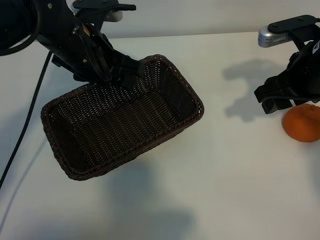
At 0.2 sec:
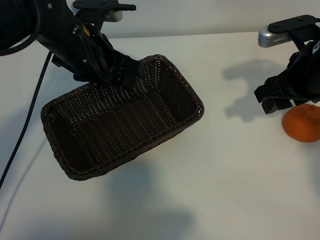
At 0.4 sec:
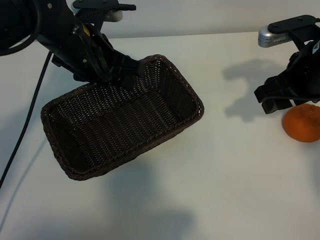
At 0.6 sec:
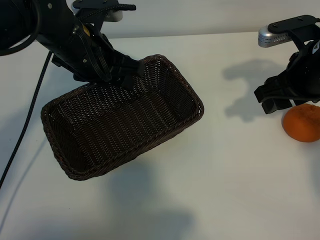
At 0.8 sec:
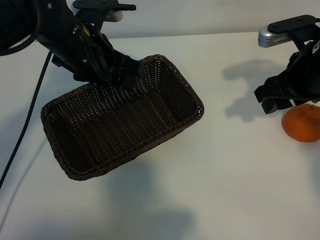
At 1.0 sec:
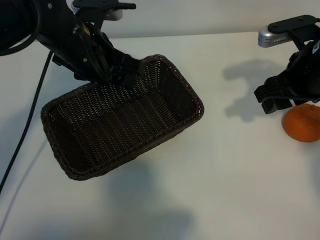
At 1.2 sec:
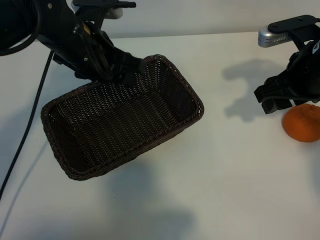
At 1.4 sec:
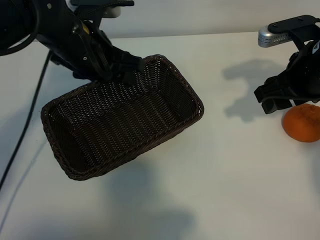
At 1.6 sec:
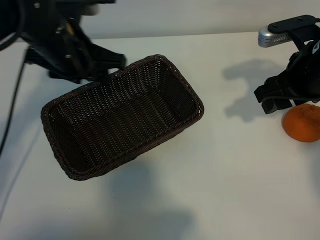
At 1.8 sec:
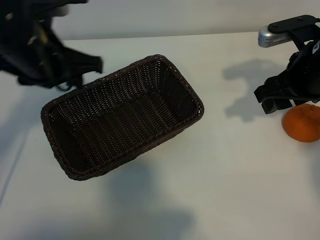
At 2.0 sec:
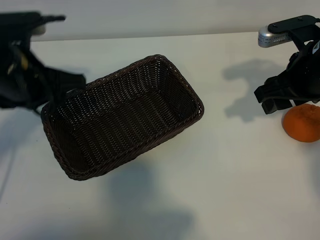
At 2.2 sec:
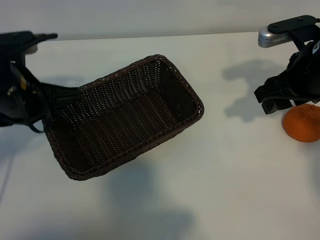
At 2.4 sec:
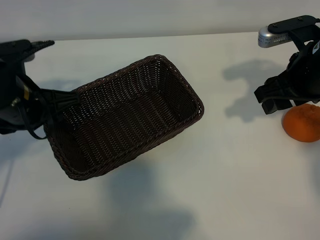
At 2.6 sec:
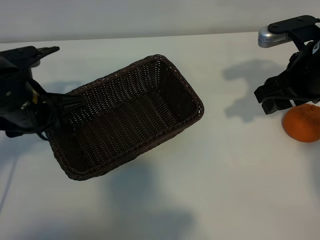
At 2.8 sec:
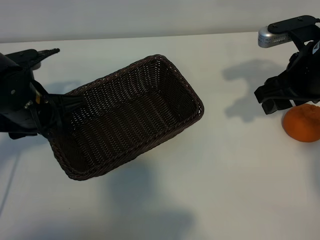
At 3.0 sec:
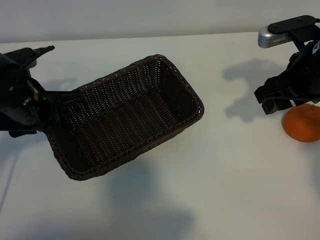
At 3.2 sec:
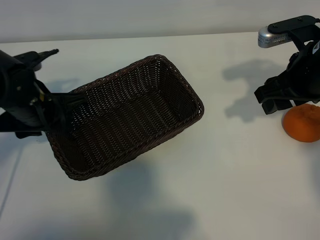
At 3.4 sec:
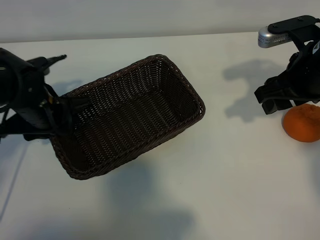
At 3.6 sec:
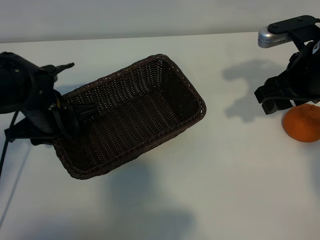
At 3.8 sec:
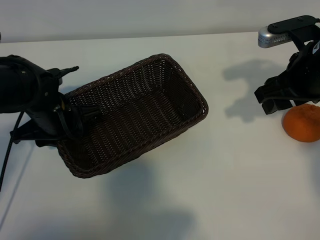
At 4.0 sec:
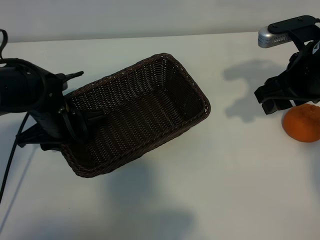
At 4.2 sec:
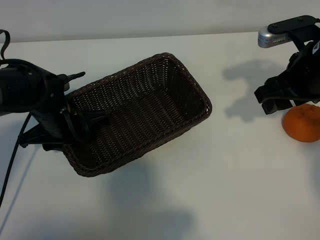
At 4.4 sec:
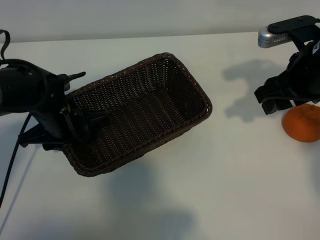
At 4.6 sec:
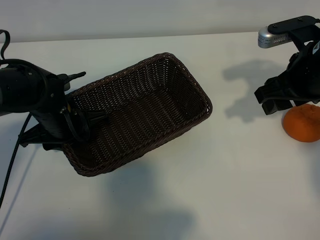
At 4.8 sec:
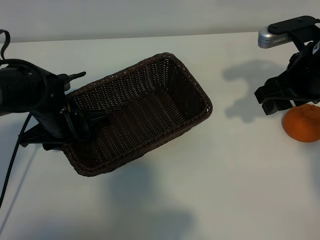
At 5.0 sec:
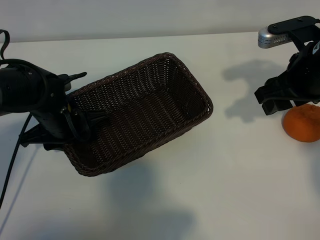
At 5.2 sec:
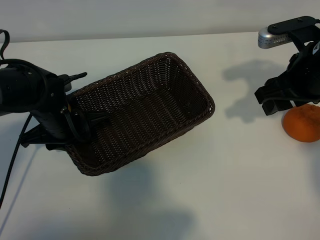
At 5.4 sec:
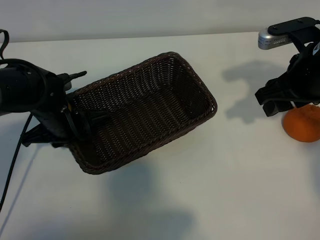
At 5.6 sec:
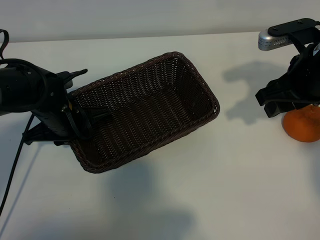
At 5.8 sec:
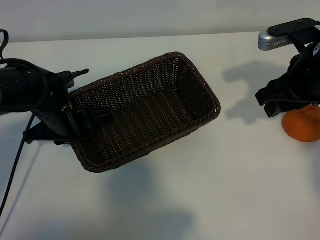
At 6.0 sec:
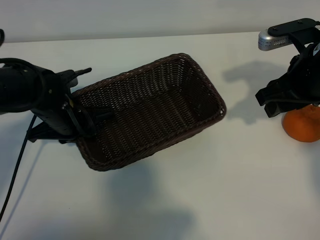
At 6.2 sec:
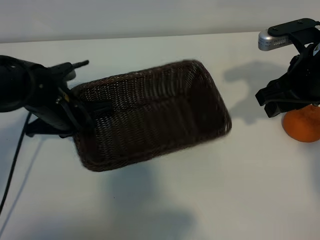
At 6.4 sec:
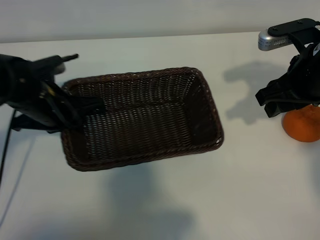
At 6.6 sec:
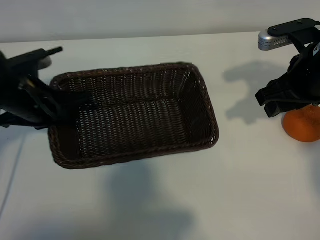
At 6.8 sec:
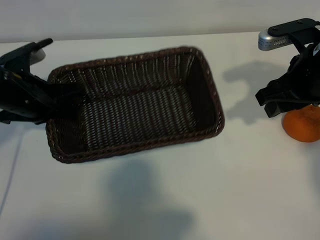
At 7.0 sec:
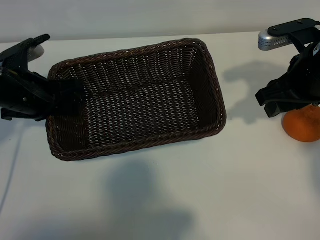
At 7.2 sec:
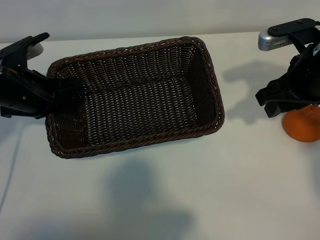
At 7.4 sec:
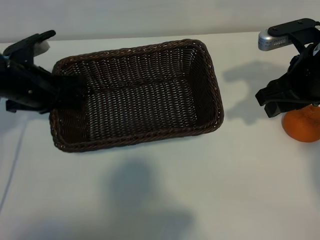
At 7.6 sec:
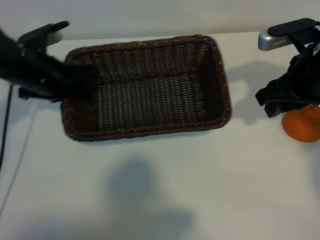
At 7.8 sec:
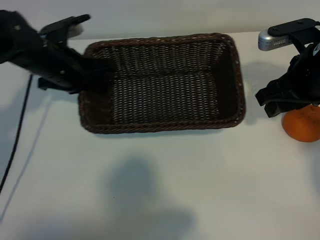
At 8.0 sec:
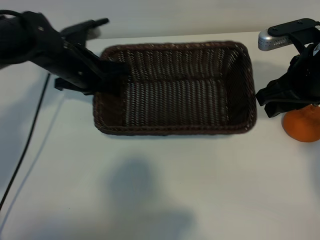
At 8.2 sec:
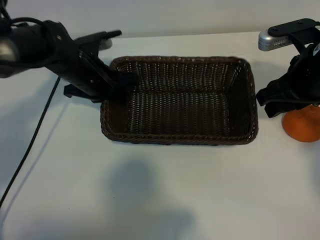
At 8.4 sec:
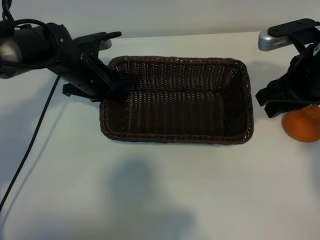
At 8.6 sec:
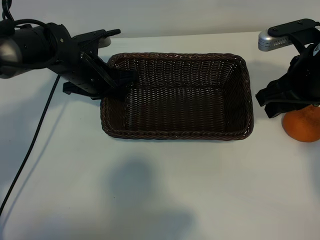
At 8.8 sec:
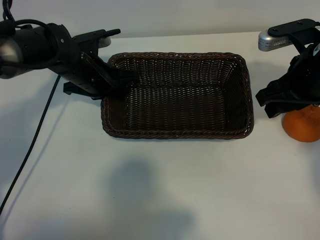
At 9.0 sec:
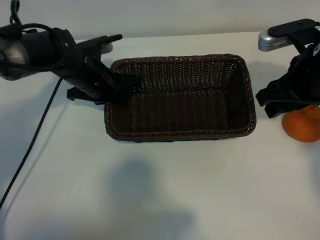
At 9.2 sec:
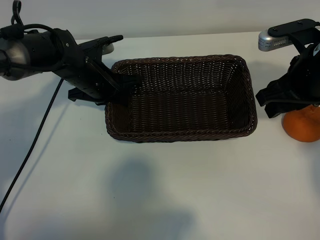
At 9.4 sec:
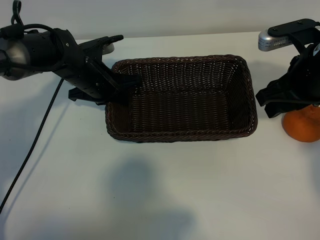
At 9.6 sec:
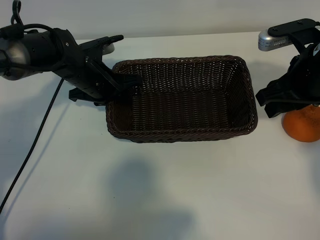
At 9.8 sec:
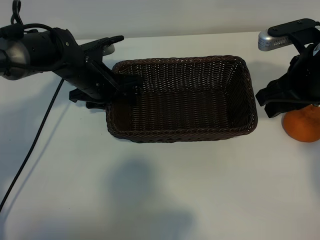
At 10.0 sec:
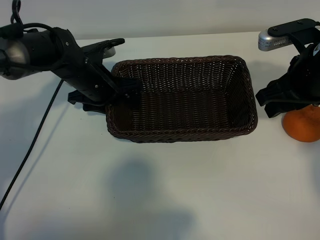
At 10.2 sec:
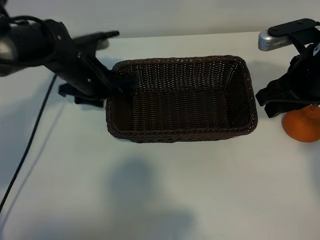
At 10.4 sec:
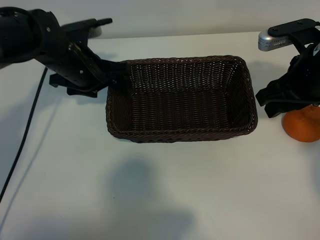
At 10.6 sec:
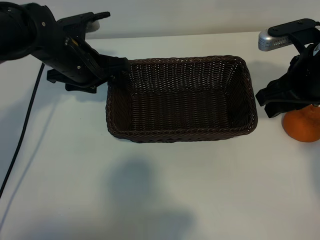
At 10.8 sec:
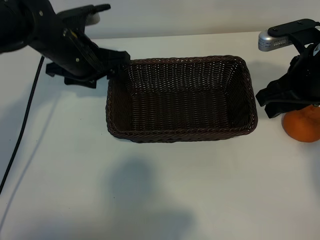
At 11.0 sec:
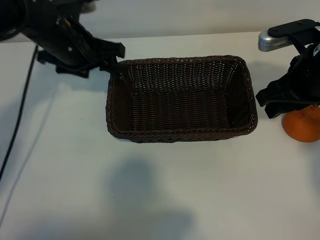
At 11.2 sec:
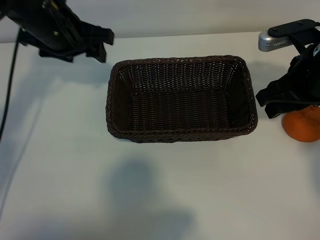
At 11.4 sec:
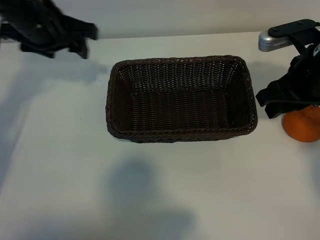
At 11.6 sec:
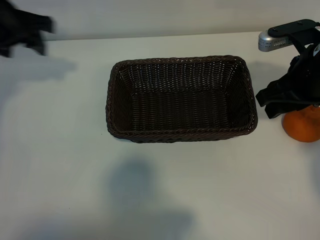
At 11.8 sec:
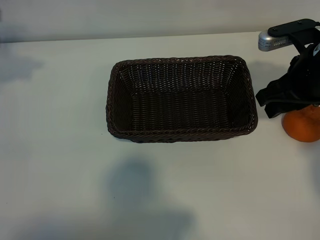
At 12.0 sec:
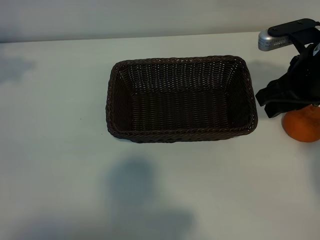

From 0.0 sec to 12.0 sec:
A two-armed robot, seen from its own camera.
Task of the whole recording: pick up the orange and put it into the basket.
Step, from 1.0 sec to 5.4 sec: Grasp the basket with left gripper.
Step, from 5.6 sec to 9.6 sec: Place the basket in the center of view with left gripper.

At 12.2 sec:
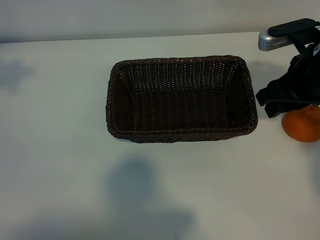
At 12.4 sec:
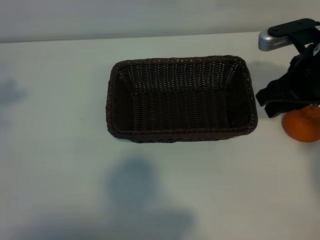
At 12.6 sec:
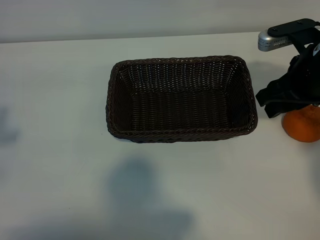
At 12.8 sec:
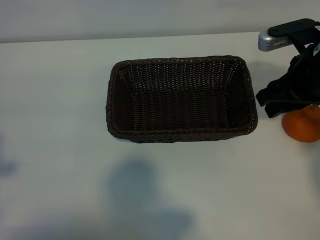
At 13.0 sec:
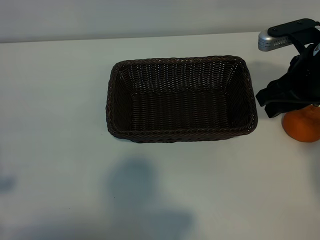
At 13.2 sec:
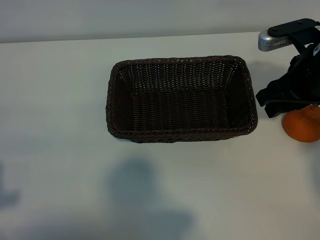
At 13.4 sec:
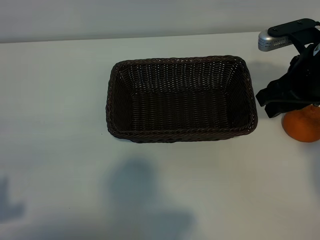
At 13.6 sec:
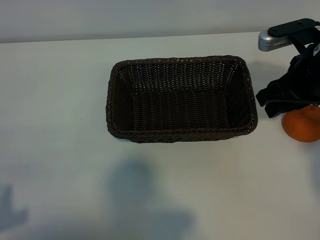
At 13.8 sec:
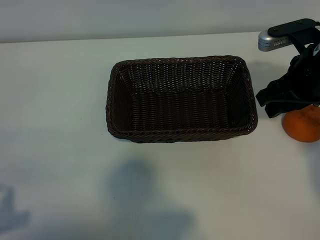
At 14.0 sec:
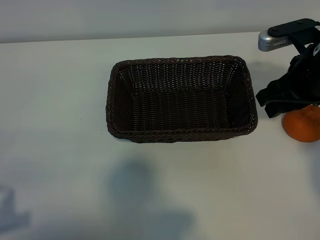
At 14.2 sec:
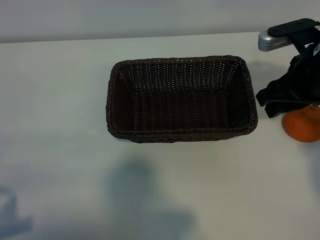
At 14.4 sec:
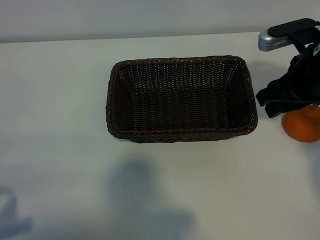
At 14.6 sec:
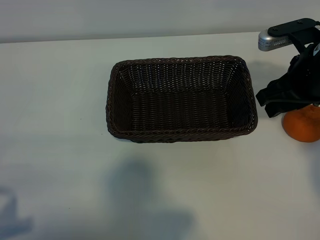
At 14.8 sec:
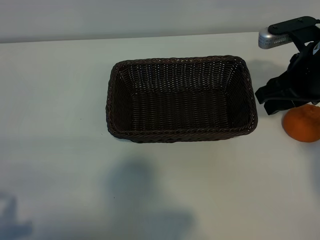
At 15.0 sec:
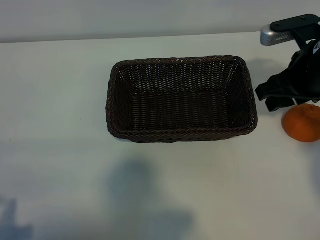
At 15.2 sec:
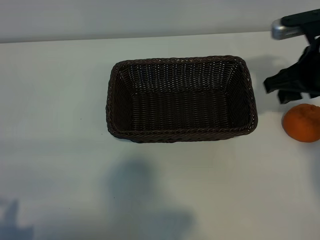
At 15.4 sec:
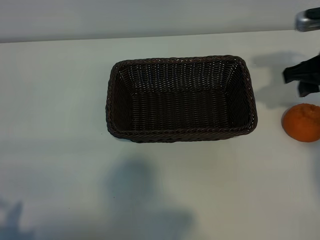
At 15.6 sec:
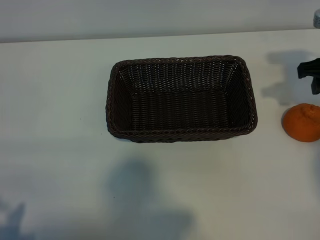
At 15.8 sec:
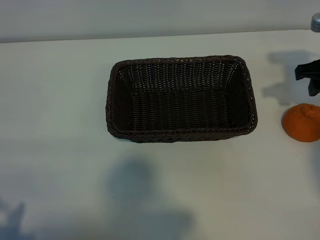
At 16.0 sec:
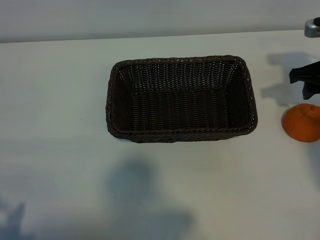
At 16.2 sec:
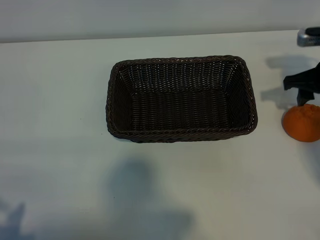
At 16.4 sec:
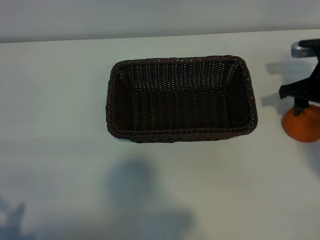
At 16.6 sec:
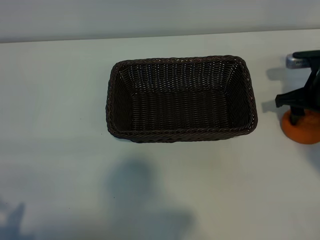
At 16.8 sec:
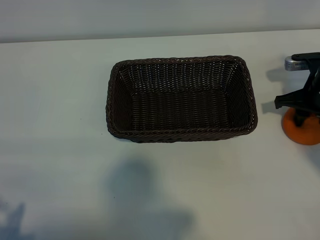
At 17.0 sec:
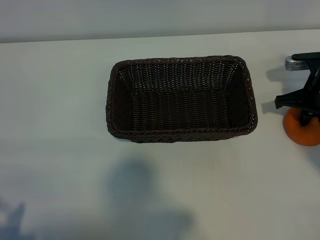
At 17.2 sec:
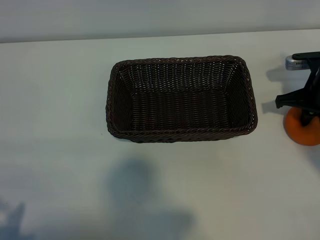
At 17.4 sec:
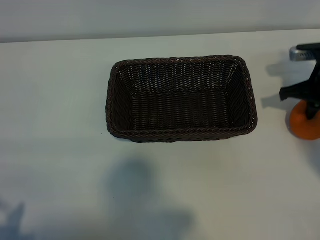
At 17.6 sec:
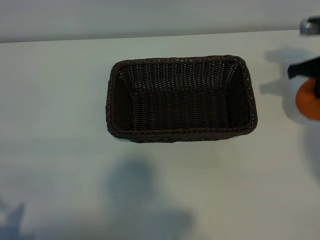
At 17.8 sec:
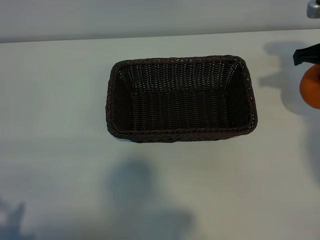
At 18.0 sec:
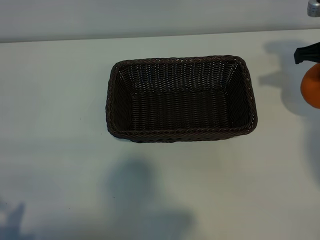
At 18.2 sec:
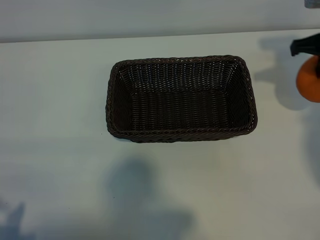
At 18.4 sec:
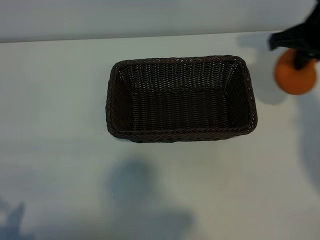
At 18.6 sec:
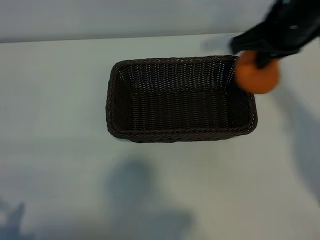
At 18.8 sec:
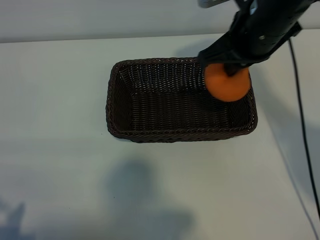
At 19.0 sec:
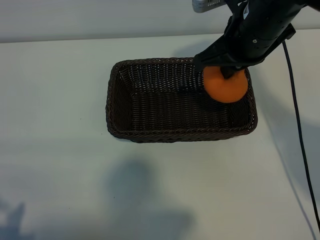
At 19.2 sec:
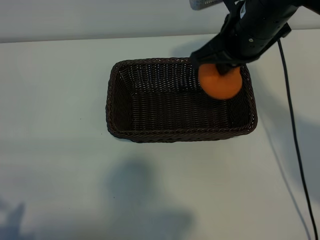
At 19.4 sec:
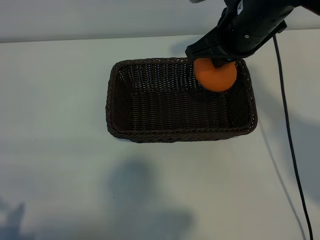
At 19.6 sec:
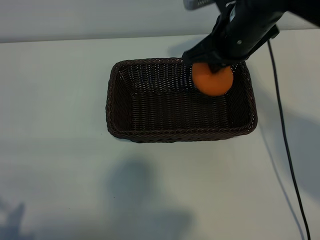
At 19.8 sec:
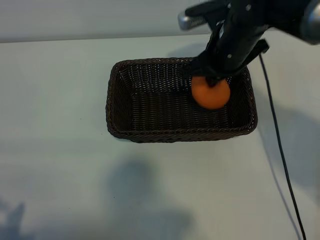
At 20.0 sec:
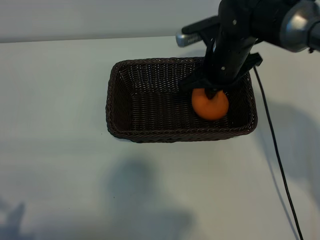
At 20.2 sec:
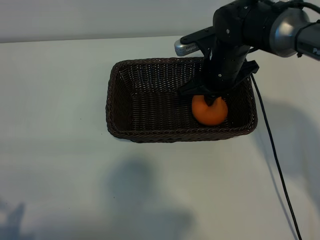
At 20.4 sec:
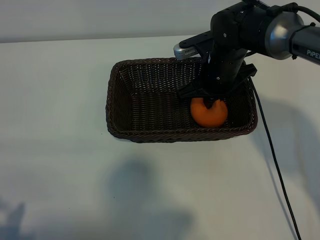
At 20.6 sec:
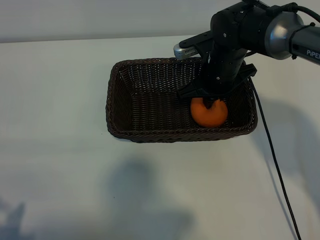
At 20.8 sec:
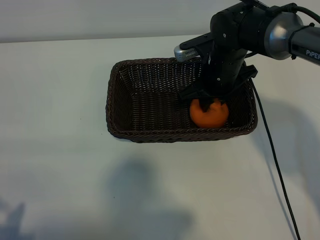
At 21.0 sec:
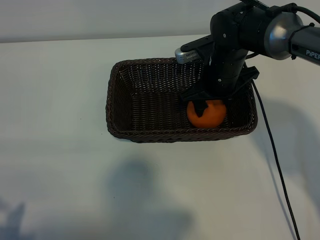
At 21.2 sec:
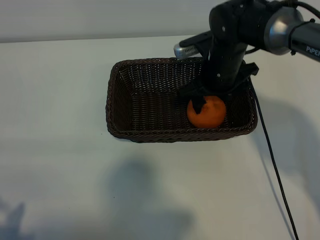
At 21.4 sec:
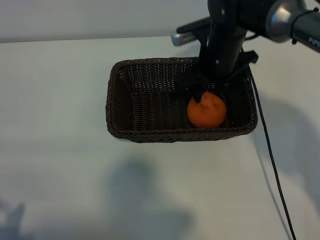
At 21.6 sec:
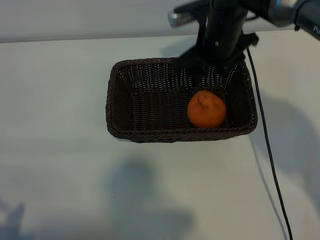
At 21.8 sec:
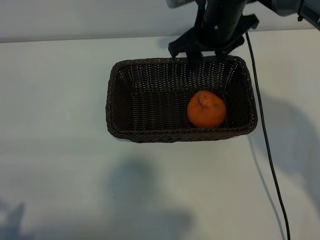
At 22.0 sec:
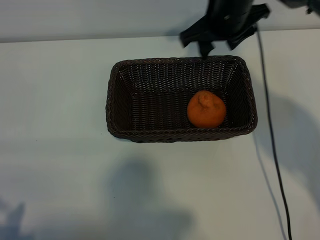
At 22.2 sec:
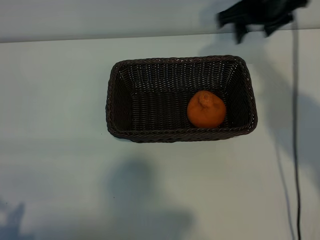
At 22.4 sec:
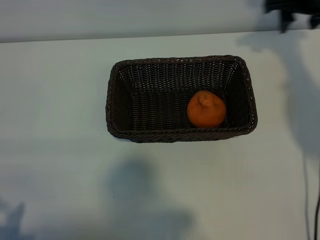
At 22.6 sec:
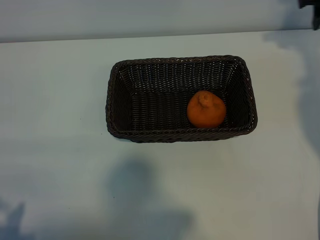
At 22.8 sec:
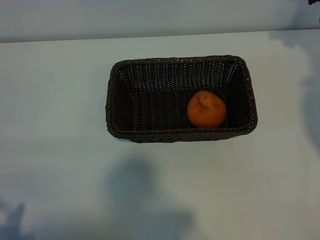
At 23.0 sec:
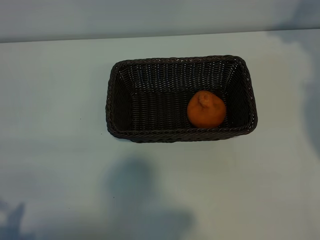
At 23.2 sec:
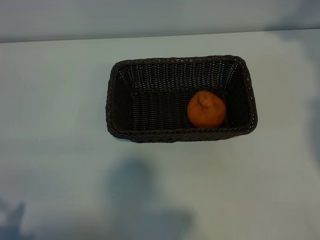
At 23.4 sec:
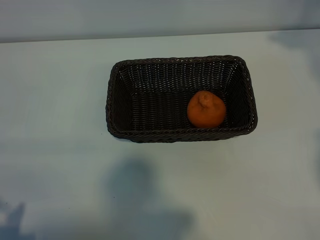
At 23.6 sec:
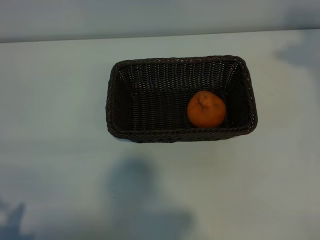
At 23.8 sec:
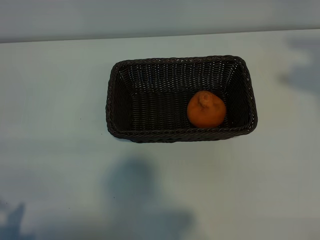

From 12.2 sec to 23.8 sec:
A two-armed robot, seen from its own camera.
Task of the whole recording: pick up the orange and put it into the basket.
Step, from 12.2 sec to 17.2 sec: Grasp the orange with right gripper.
Step, from 17.4 sec to 21.0 sec: Place the orange in the basket with right gripper.
